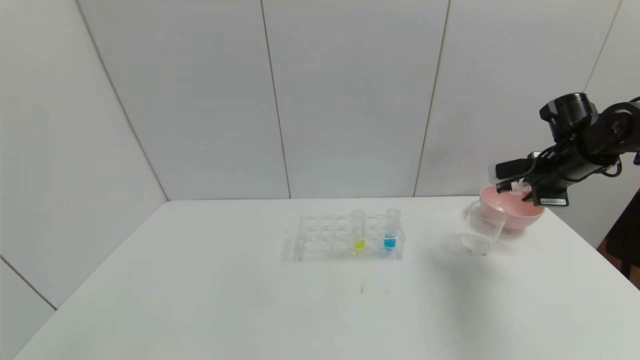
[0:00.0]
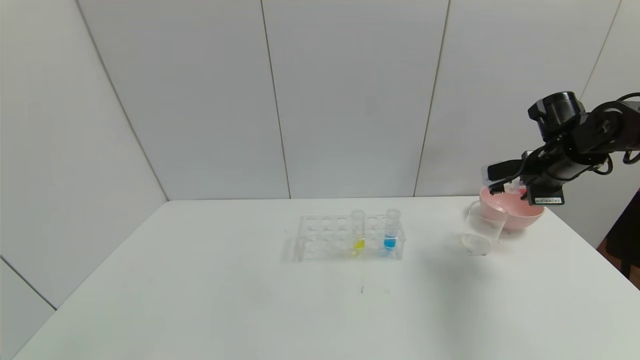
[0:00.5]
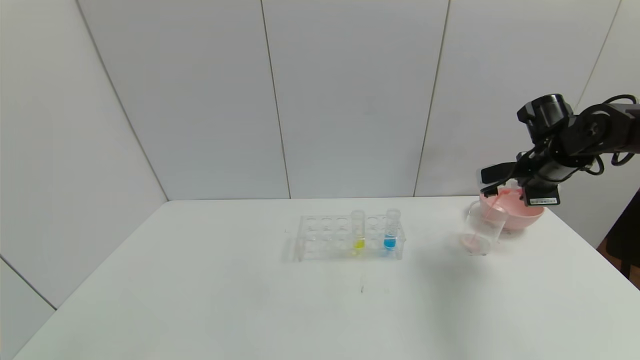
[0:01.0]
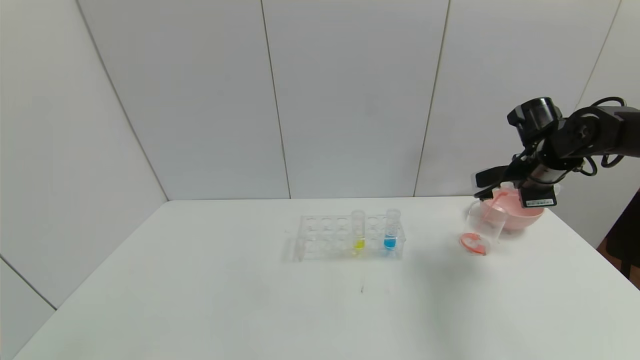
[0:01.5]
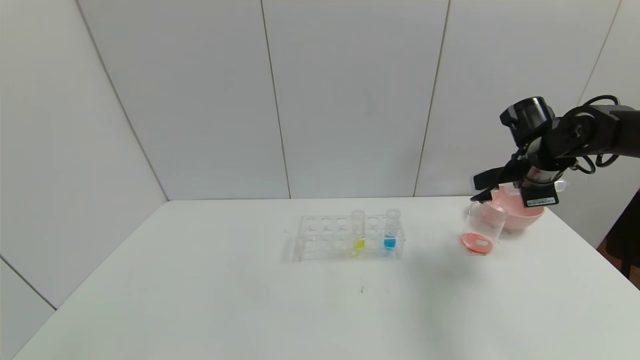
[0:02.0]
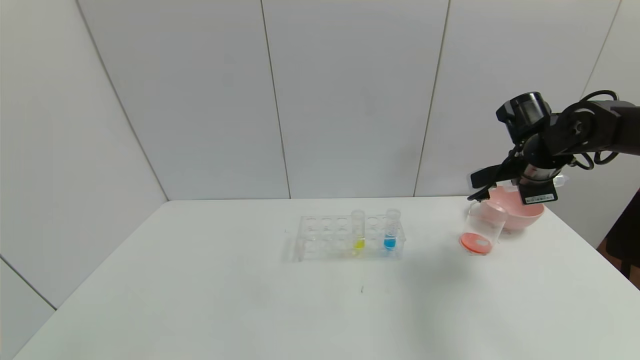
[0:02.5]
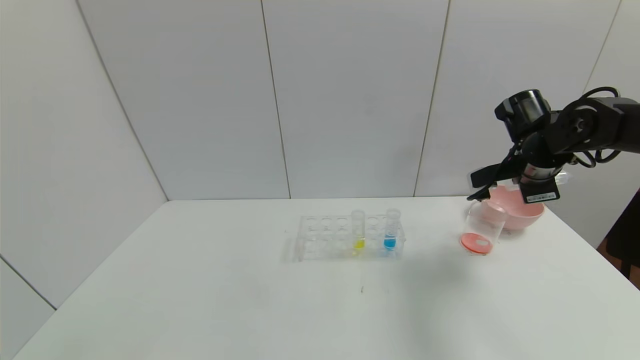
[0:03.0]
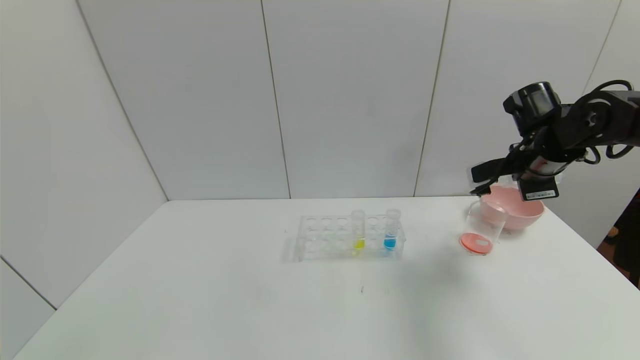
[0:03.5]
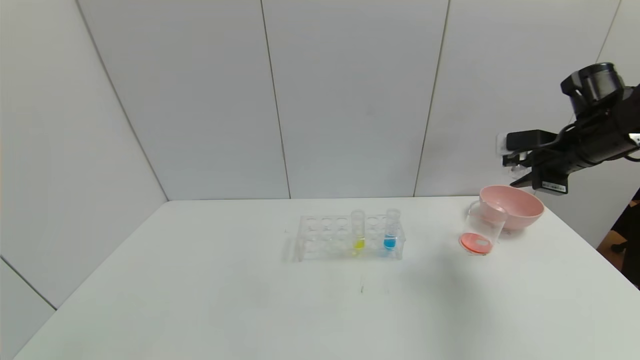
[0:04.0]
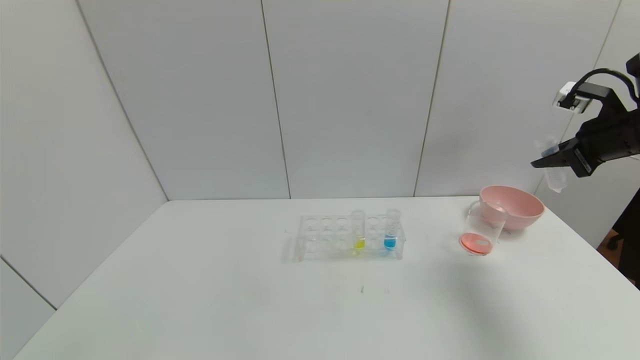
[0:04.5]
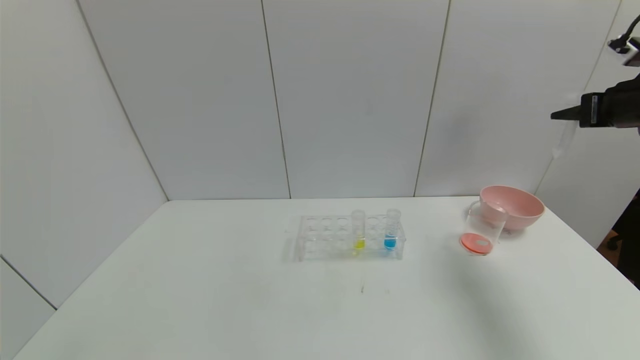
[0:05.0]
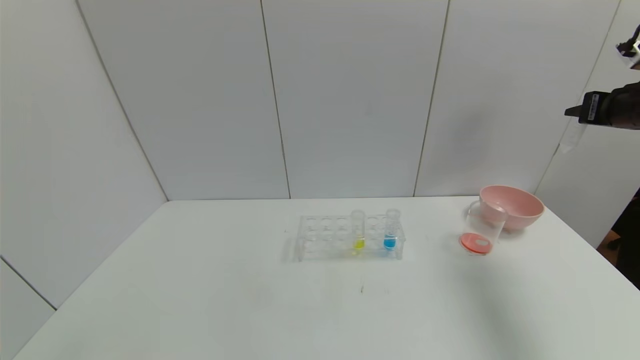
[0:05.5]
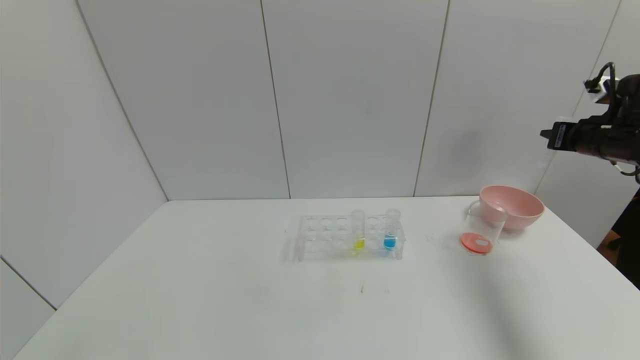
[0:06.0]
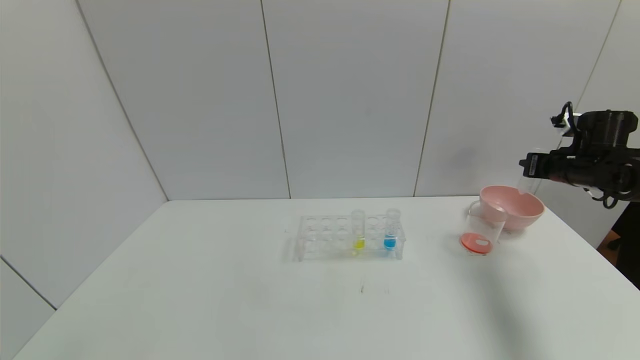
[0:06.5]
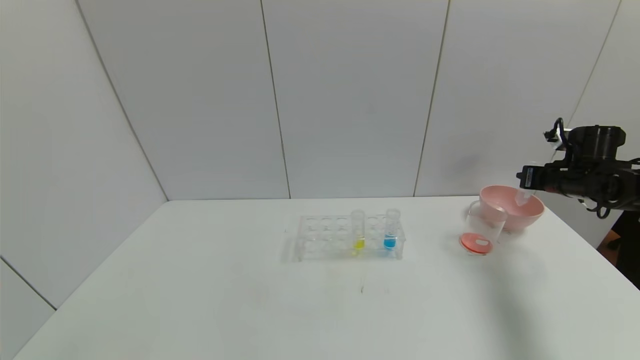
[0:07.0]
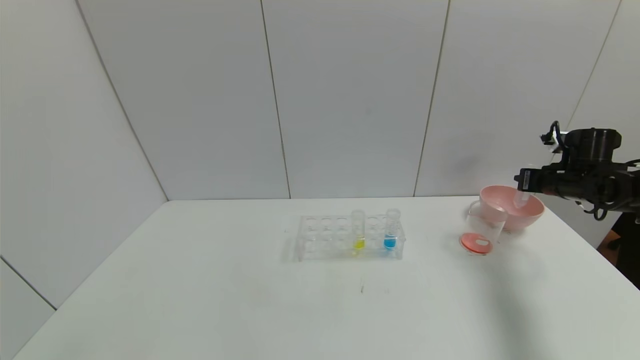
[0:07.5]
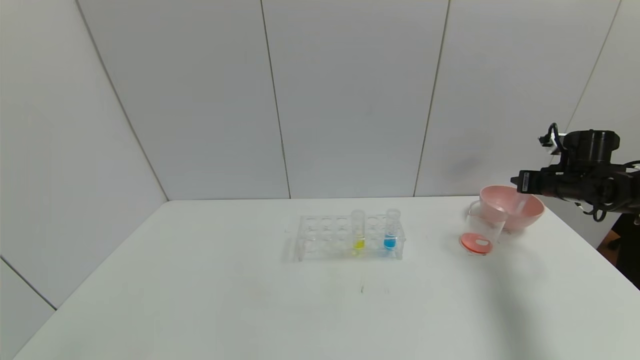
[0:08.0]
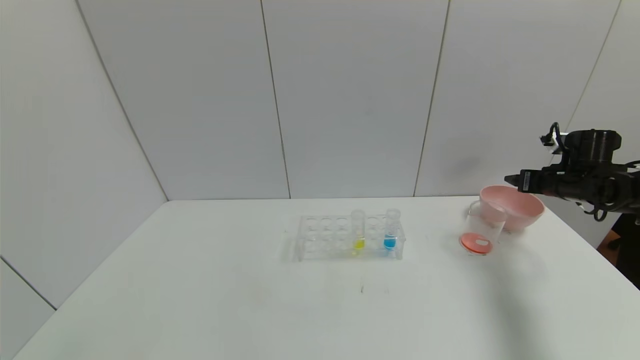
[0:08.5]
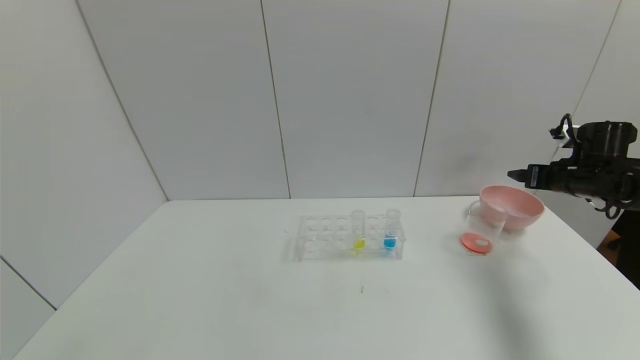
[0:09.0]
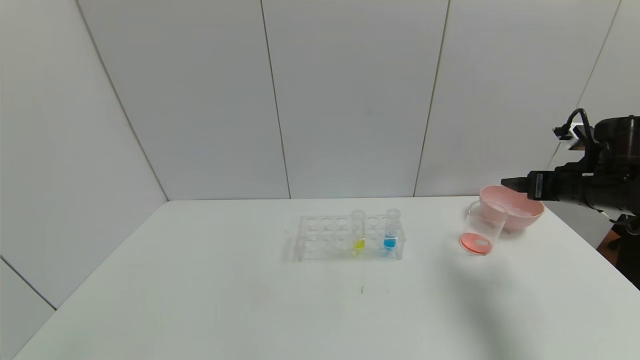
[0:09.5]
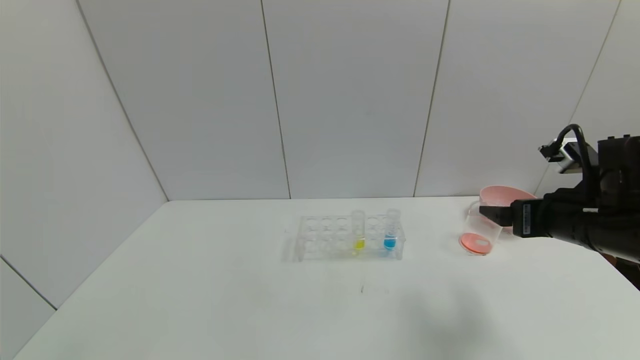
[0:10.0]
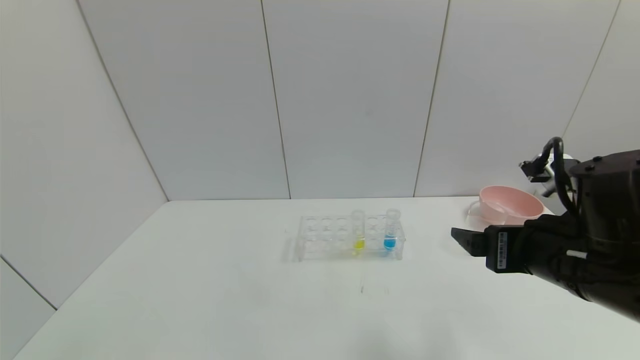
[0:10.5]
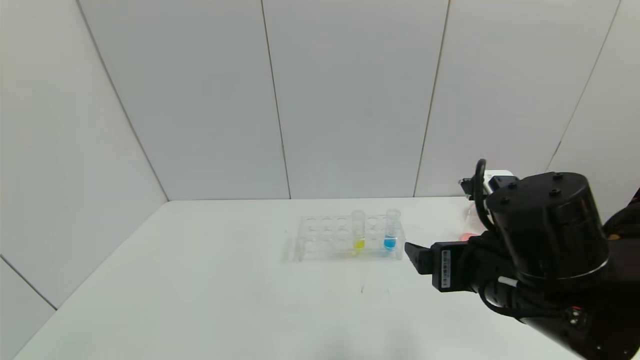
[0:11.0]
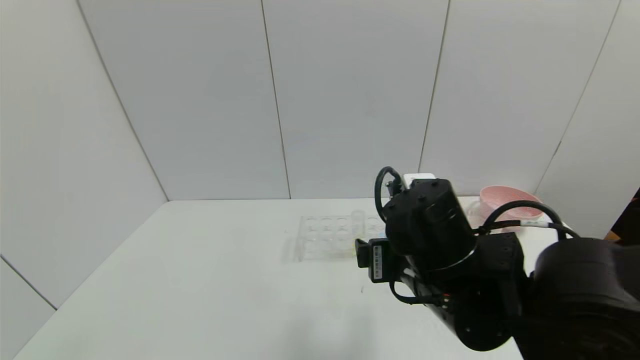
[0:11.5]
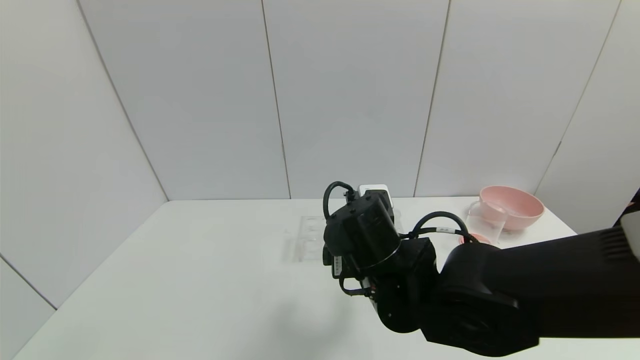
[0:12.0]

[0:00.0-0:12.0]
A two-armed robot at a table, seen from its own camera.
Task of the whole recording: pick up the test tube with yellow pigment and the test tube with red pigment by grippers and pour them into the beaker.
Step, 0:00.0 to 0:02.5: Pour the red reagent into the graduated cylinder with the right gripper.
Step, 0:03.0 to 0:08.5: Place the test tube into the bowl with the right gripper.
0:00.0 to 0:02.0: The right gripper moves to the left, roughly 5 cm.
0:02.0 to 0:04.0: The right gripper ends up roughly 5 cm from where it was.
0:04.0 to 0:06.0: The right gripper moves to the right, about 5 cm.
0:06.0 to 0:08.0: The right gripper shifts approximately 10 cm downward.
0:08.0 to 0:10.0: The right gripper shifts some 25 cm backward and to the left, and opens.
0:10.0 to 0:12.0: The right gripper travels to the left by roughly 25 cm.

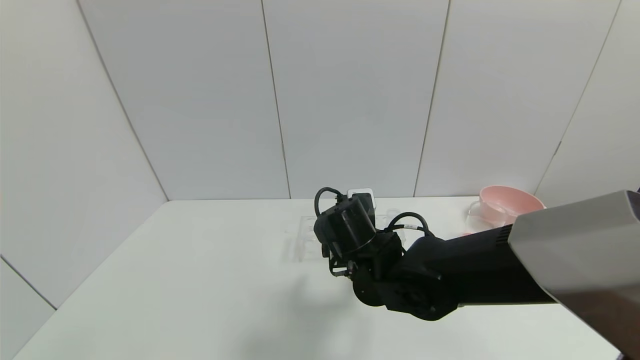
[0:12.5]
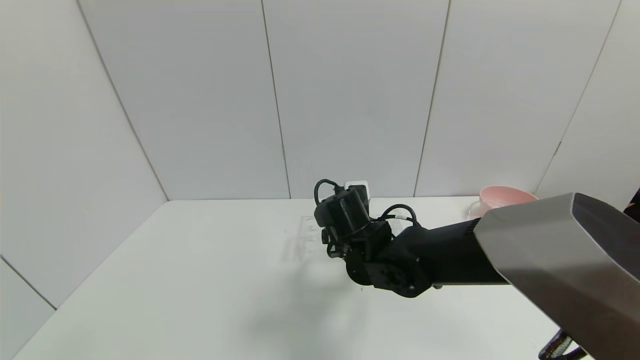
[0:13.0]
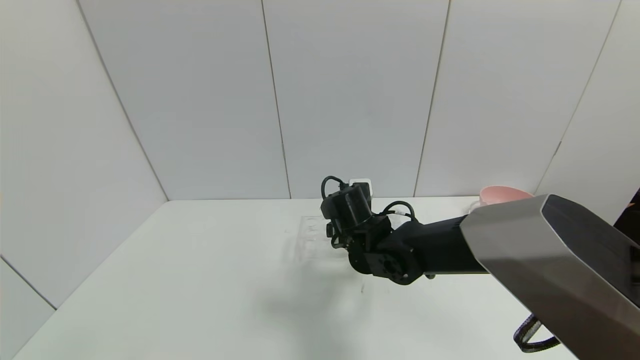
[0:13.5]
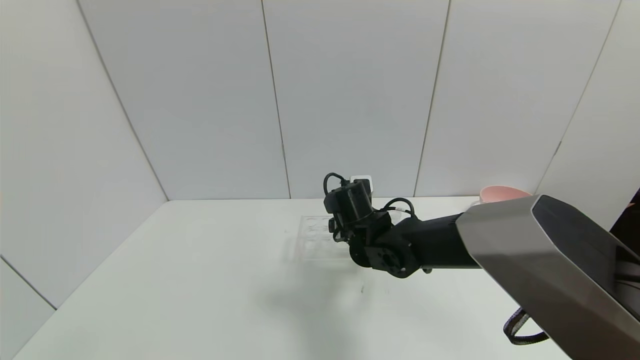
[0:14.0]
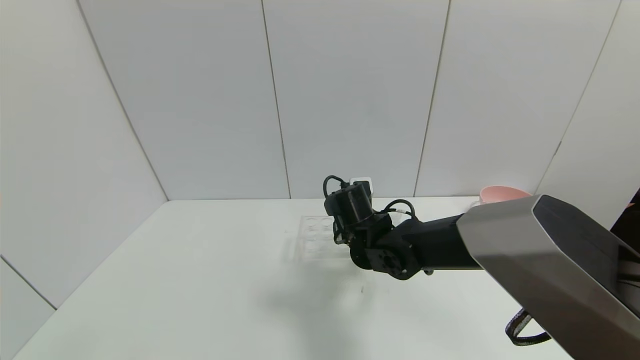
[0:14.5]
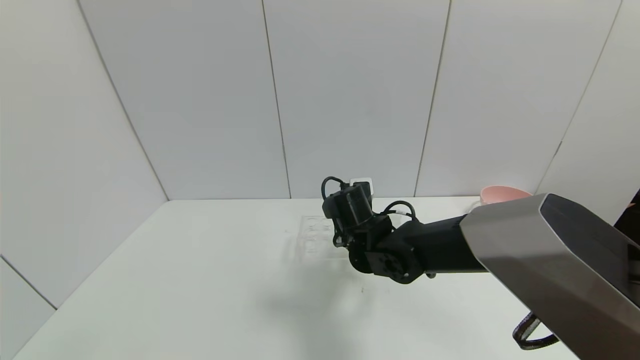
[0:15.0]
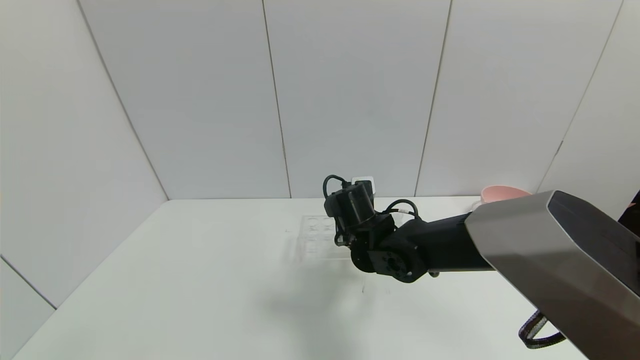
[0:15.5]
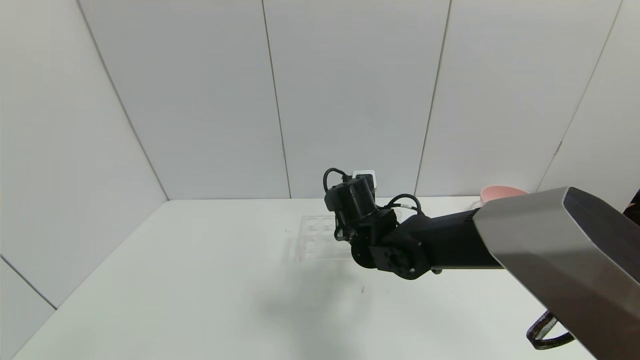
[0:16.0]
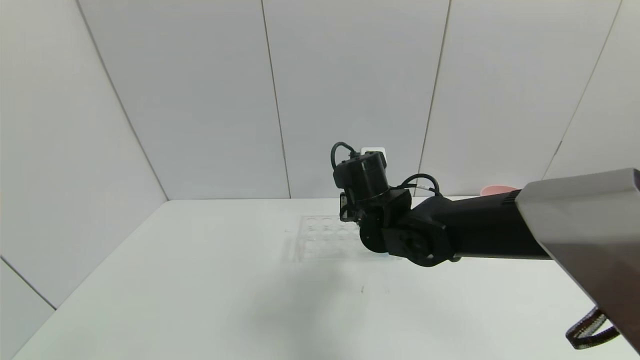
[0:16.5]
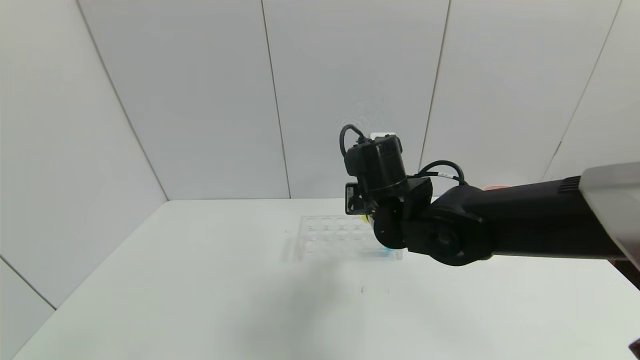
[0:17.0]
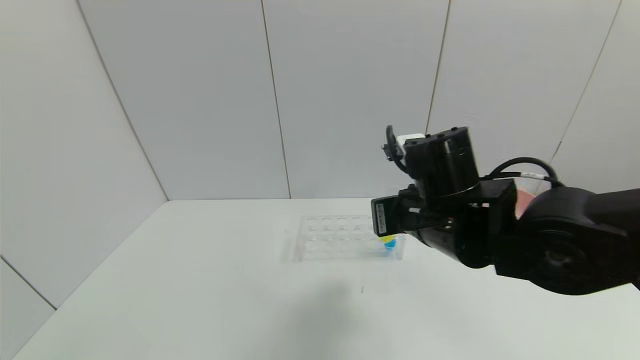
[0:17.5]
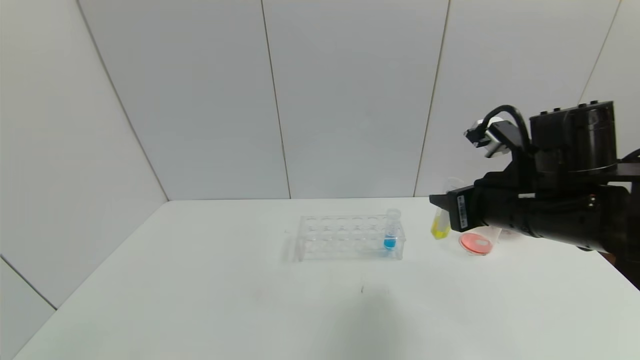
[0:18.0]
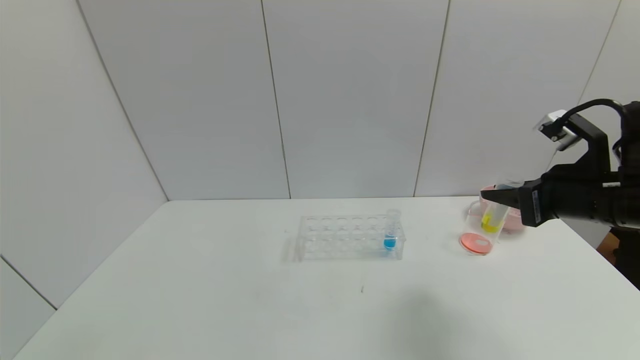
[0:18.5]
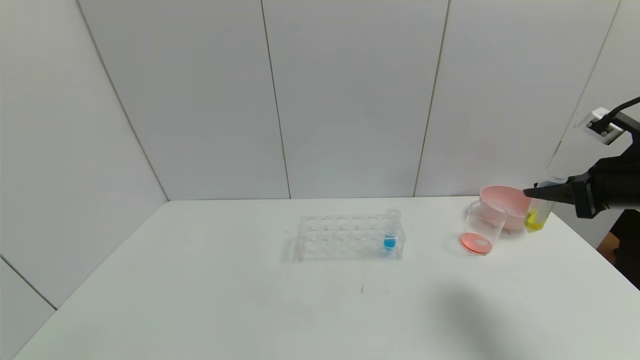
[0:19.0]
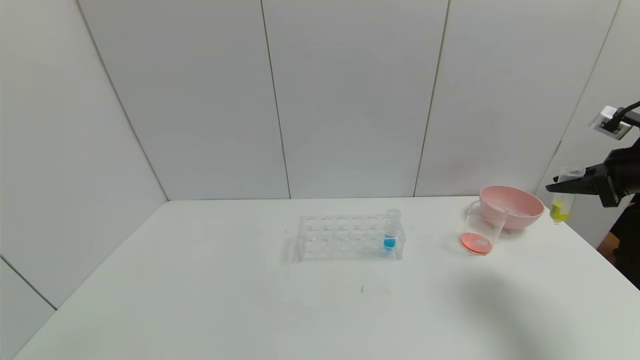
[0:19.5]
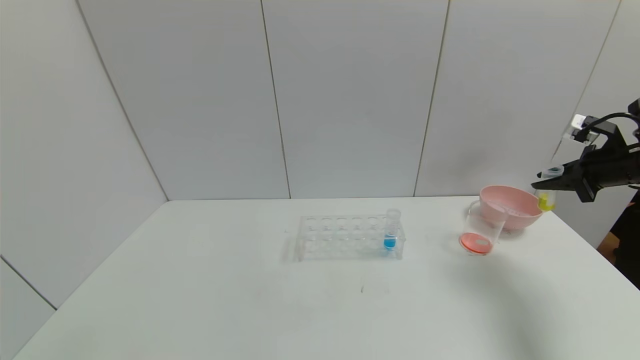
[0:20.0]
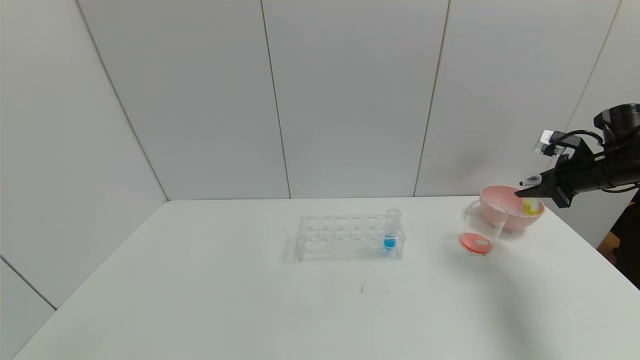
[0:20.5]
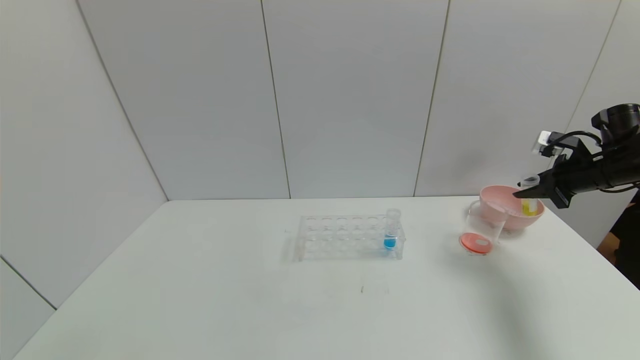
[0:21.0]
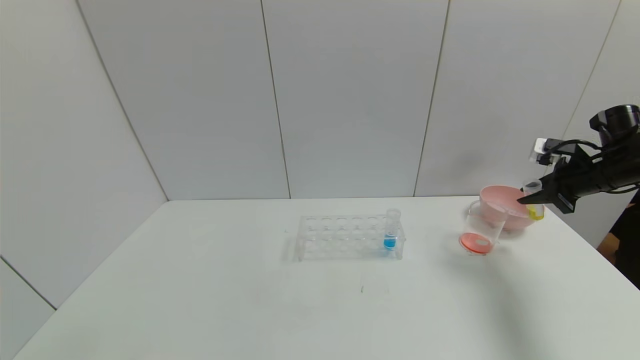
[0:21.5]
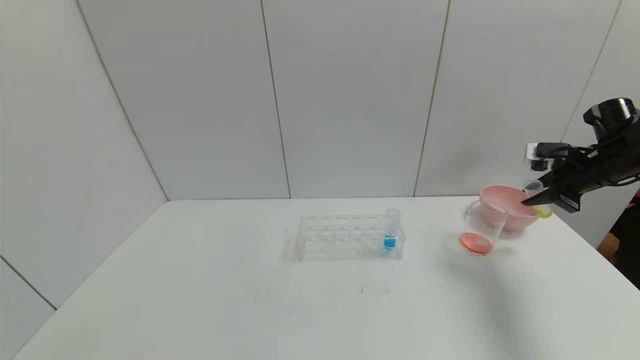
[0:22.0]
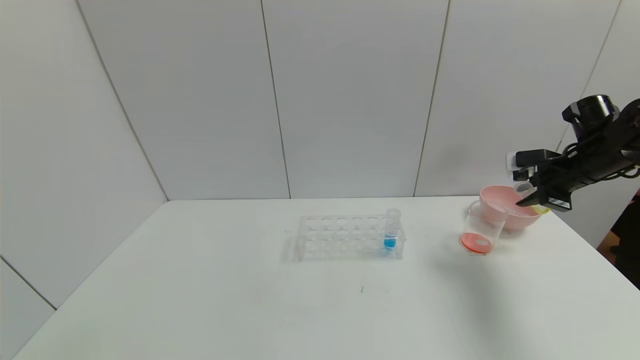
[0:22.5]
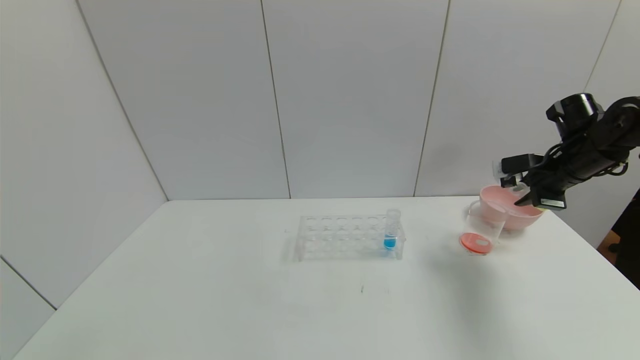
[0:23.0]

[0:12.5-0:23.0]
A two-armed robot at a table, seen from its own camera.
Task of the whole recording: pick up the test tube with yellow pigment and the test tube with red pigment by grippers and pour them into the beaker.
Step, 0:12.5 to 0:15.0: Grasp the yellow reagent with the right gripper.
0:12.5 to 0:14.5: The right gripper heads forward, covering roughly 5 cm.
0:14.5 to 0:16.5: The right gripper heads upward, covering about 5 cm, and closes.
0:16.5 to 0:19.0: The right gripper goes roughly 35 cm to the right.
0:19.0 to 0:21.0: The right gripper moves forward and to the right, about 15 cm.
0:21.0 to 0:23.0: The right gripper shifts some 5 cm to the left.
